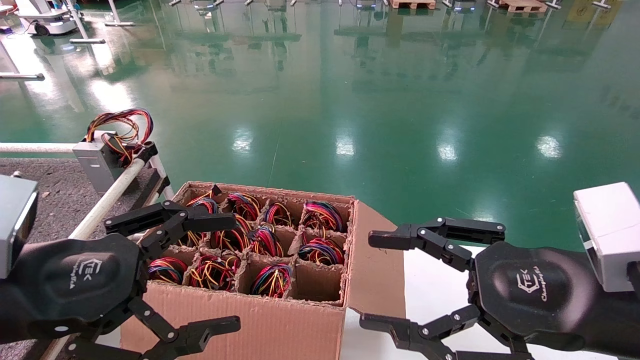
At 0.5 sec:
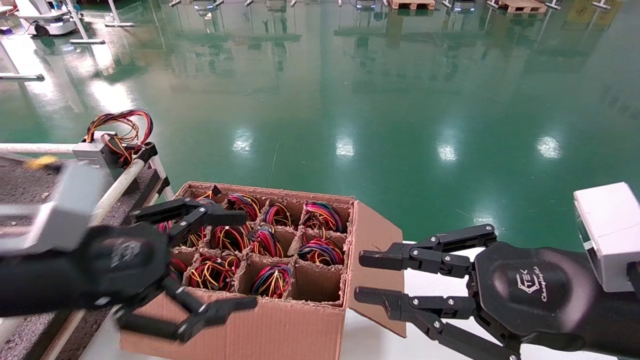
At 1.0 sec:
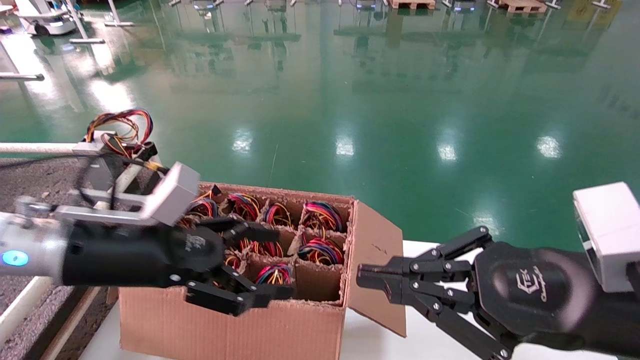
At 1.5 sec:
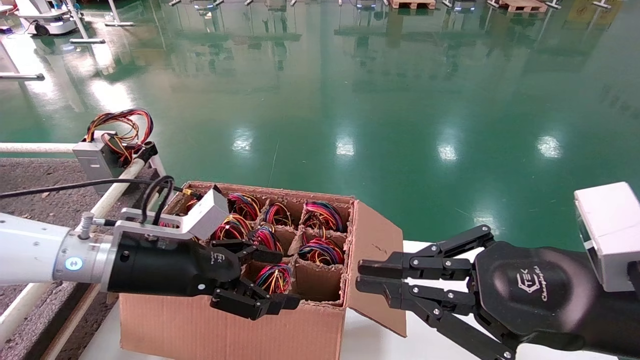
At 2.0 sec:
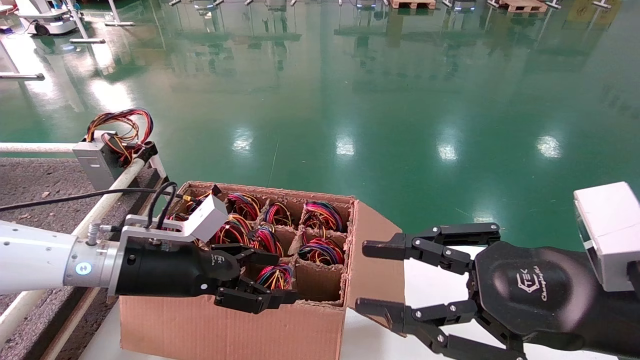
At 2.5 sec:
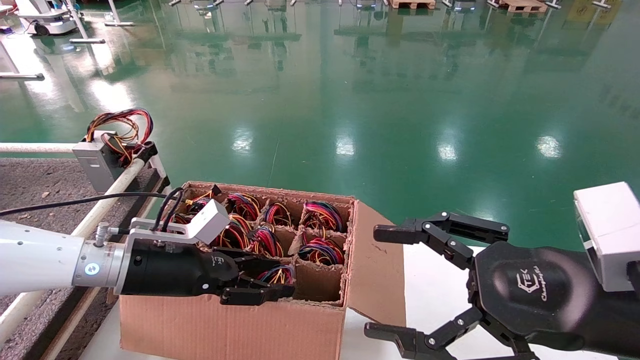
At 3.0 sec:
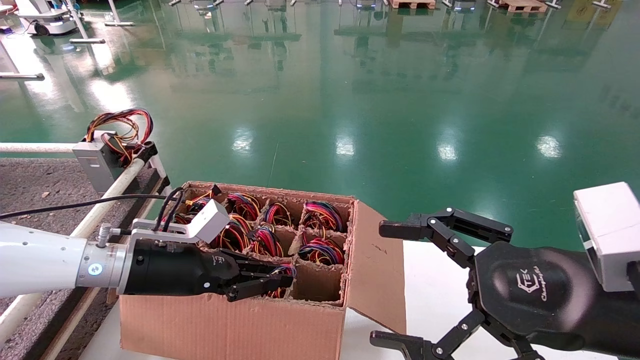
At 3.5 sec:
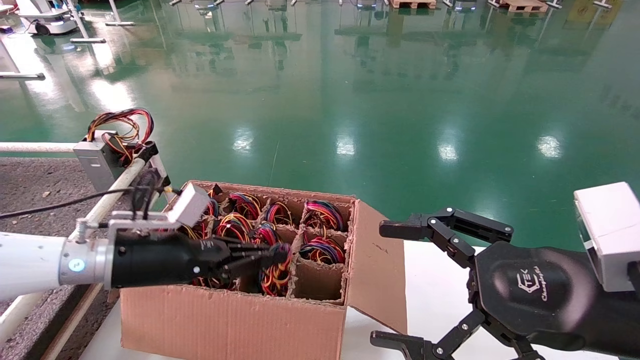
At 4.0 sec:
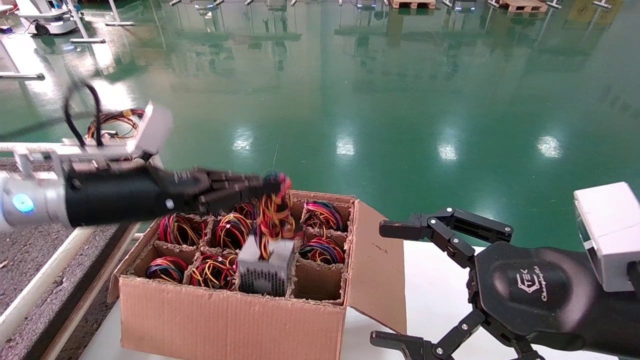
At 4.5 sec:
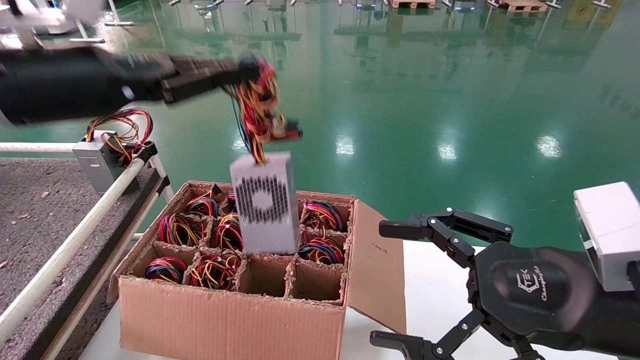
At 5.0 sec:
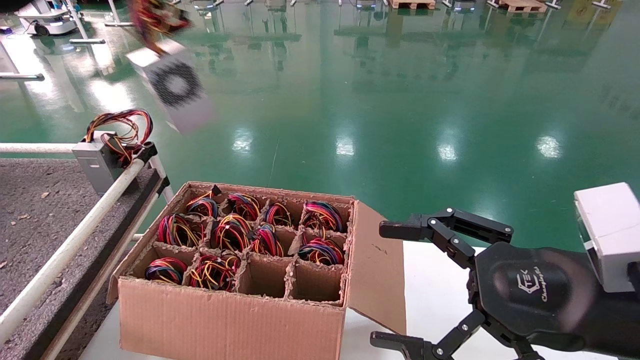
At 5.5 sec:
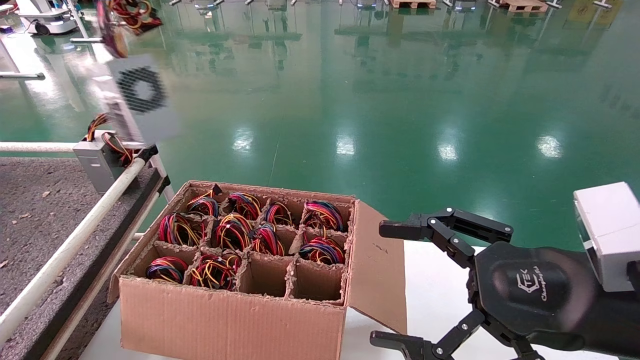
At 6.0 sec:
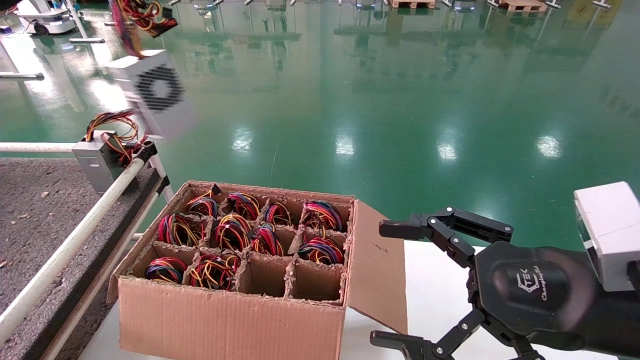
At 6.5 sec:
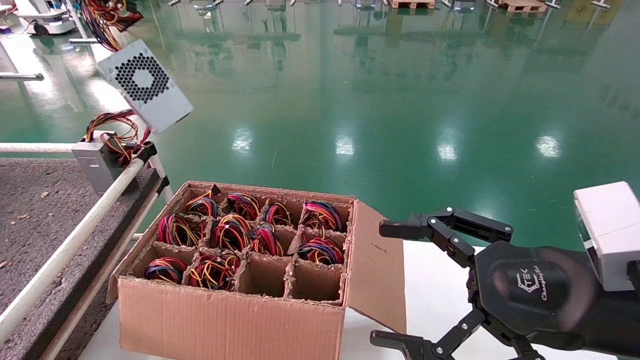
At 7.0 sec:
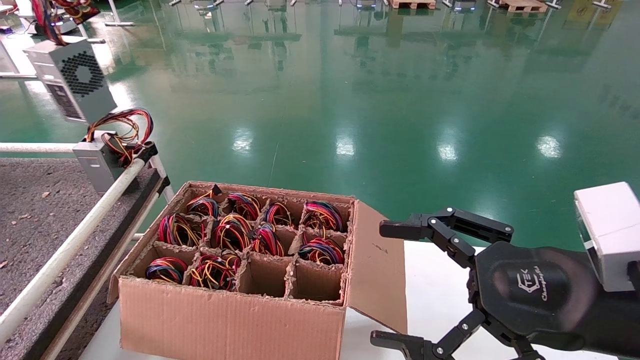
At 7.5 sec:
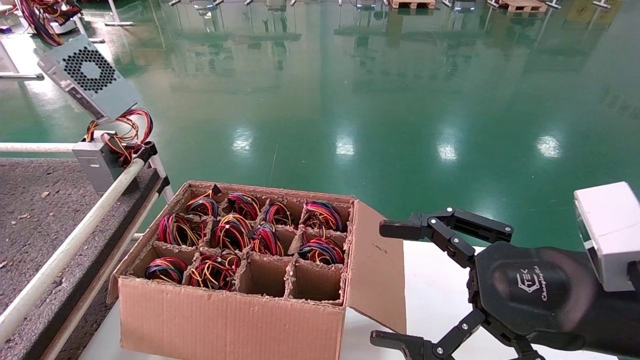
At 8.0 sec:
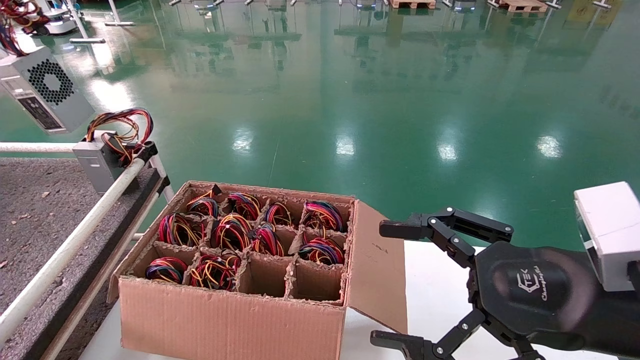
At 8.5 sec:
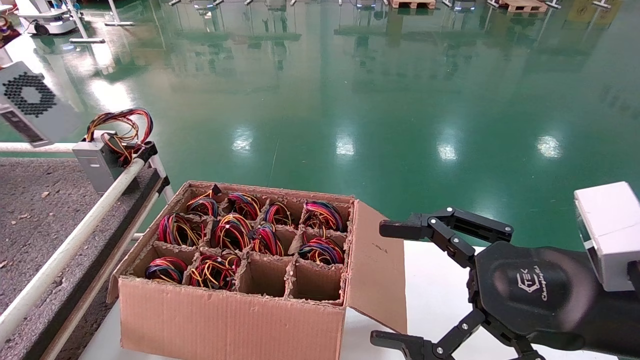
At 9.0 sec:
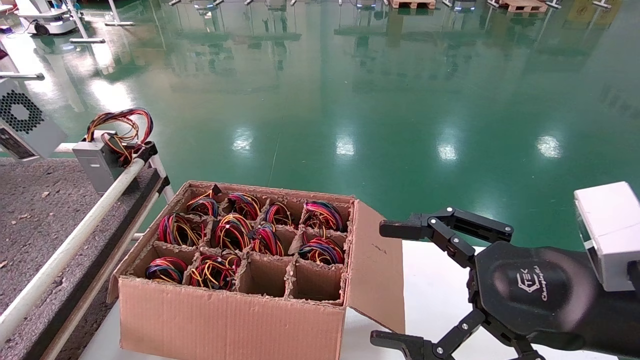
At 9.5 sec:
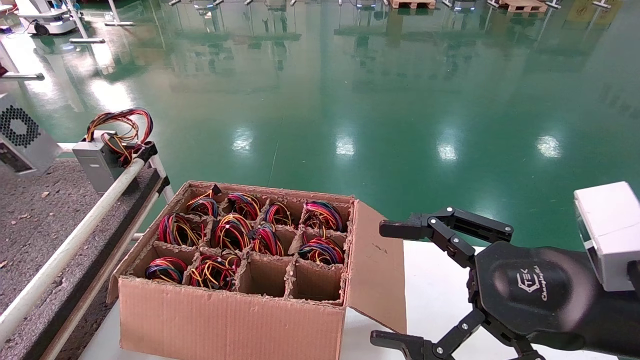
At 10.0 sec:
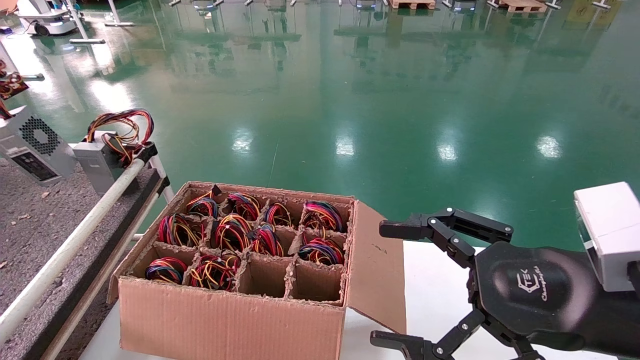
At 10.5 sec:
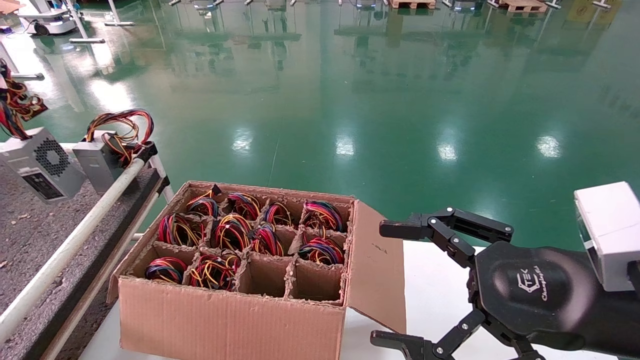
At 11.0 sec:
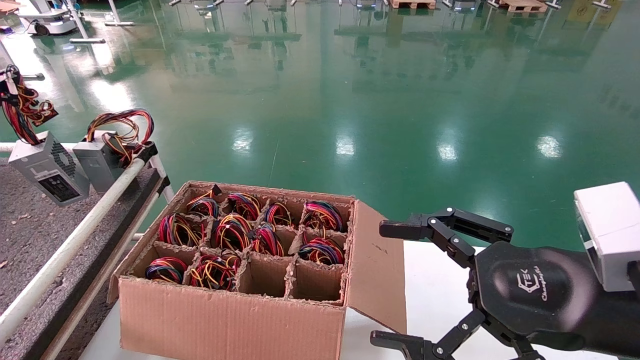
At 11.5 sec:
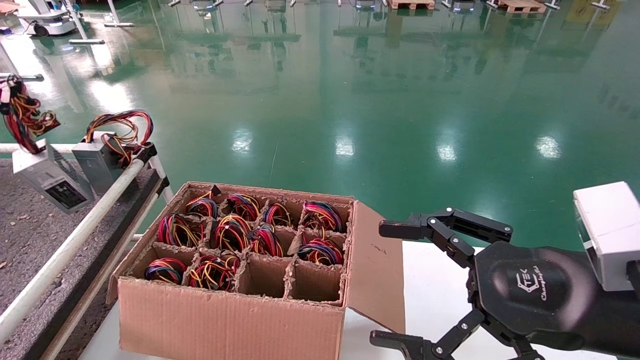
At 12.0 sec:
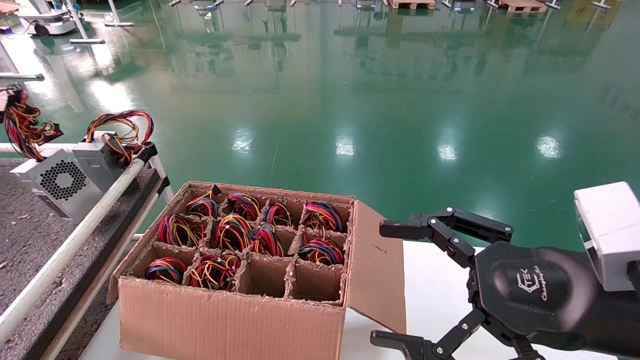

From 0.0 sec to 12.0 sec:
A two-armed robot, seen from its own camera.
Step, from 0.5 sec to 3.0 sec: Grab and lift the power supply from the large box.
From 0.0 sec to 2.0 sec: The left gripper goes roughly 15 cm forward and downward; the right gripper closes.
From 2.0 sec to 4.0 sec: The left gripper shifts about 10 cm upward, and closes, while the right gripper opens its fingers.
From 4.0 sec to 6.0 sec: The left gripper moves upward and to the left, about 25 cm.
From 6.0 sec to 8.0 sec: The left gripper travels to the left by approximately 10 cm.
From 8.0 sec to 10.0 sec: The left gripper heads downward, covering approximately 10 cm.
From 10.0 sec to 12.0 sec: The grippers move only a little.

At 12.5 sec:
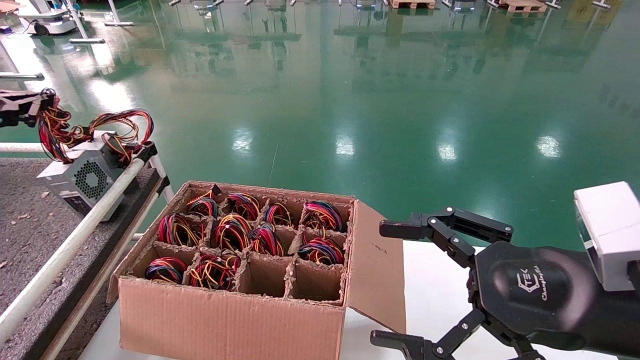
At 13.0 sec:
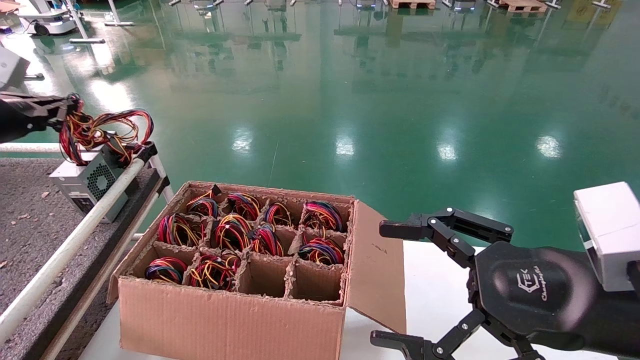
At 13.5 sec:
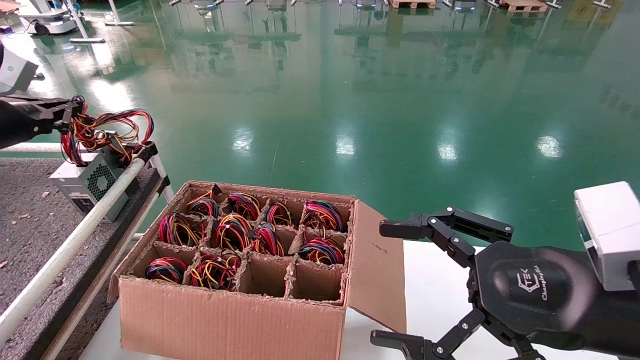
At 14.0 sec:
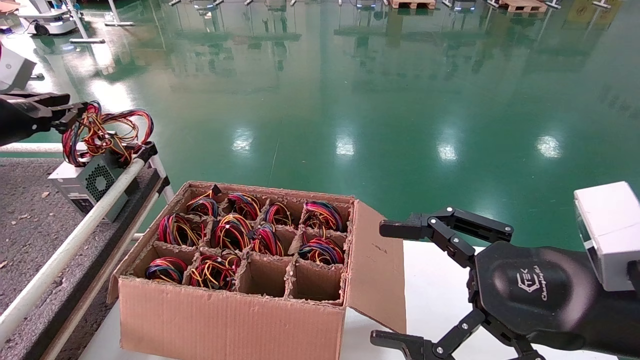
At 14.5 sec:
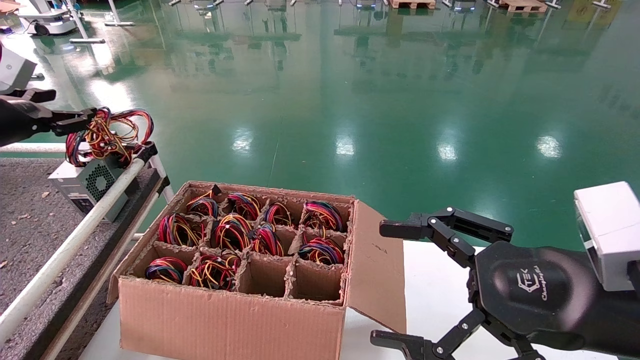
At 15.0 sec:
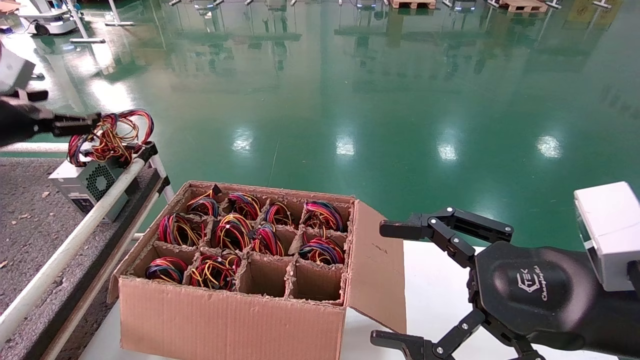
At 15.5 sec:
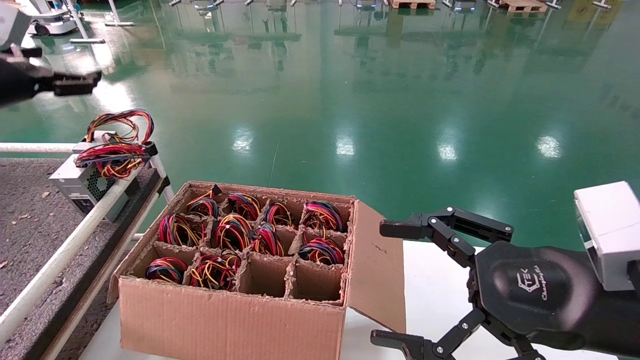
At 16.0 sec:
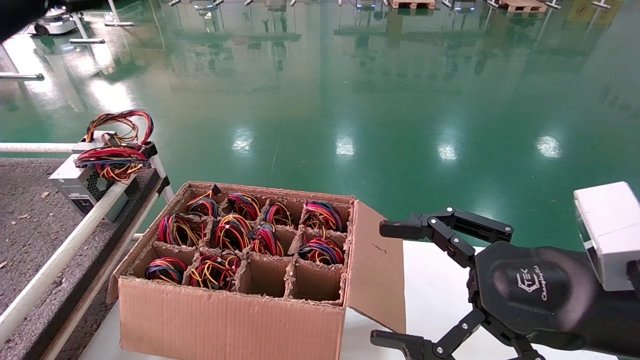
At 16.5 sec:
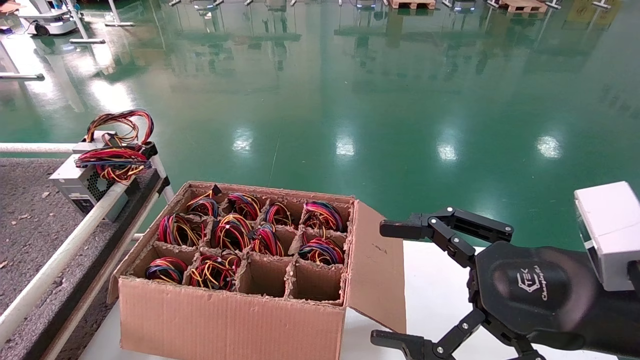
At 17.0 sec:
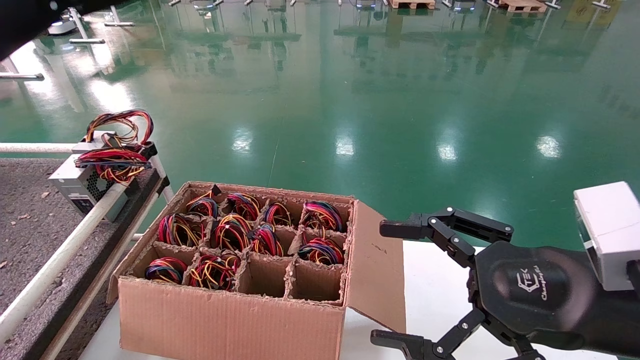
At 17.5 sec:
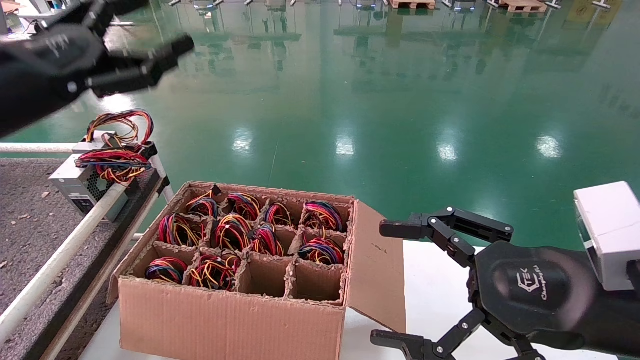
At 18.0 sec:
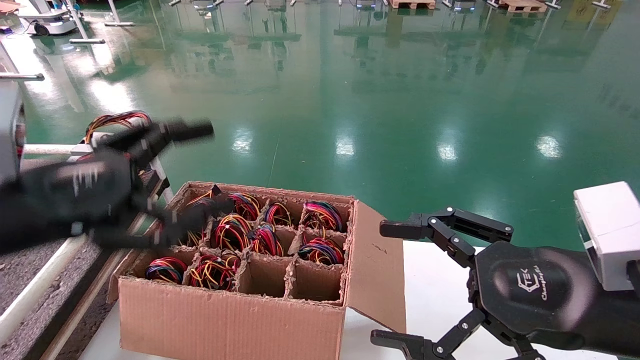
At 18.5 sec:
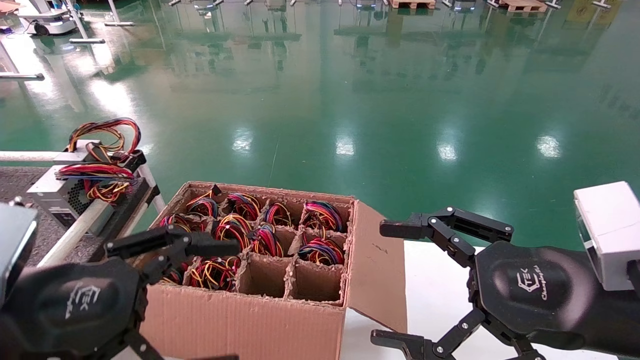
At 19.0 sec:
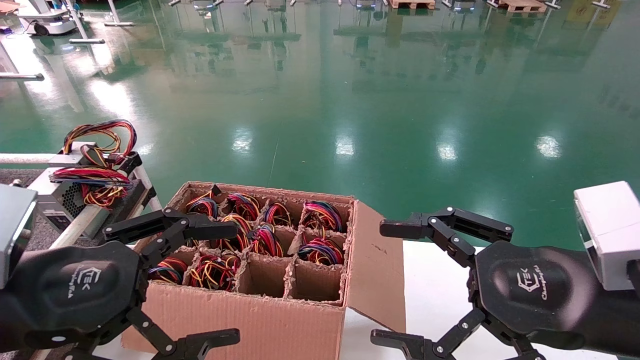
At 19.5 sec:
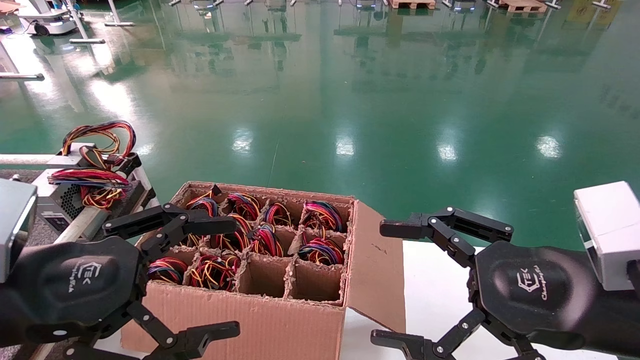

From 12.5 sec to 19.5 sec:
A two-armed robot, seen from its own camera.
From 12.5 sec to 14.5 sec: The left gripper opens.
From 14.5 sec to 16.0 sec: The left gripper moves upward and to the right, roughly 15 cm, and opens up.
From 16.0 sec to 17.5 sec: The left gripper is displaced backward, downward and to the right by about 15 cm.
From 17.5 sec to 19.5 sec: The left gripper shifts roughly 15 cm downward and backward.
